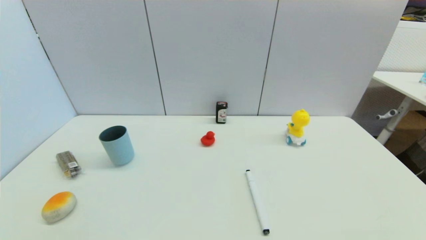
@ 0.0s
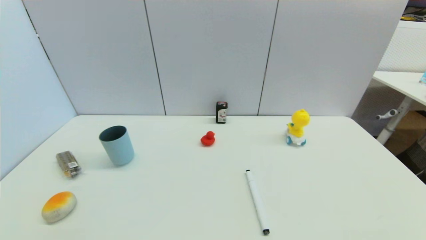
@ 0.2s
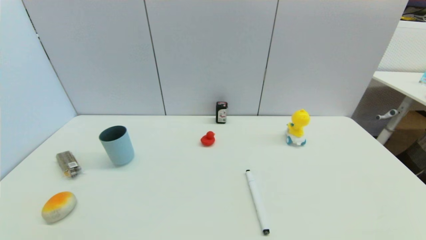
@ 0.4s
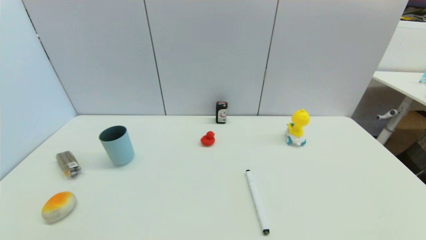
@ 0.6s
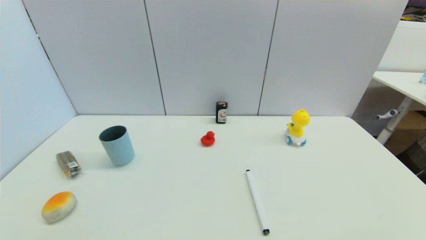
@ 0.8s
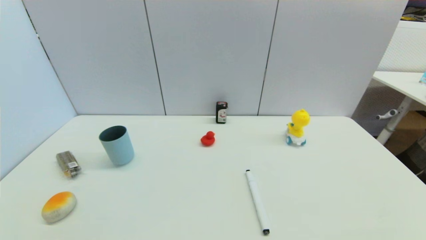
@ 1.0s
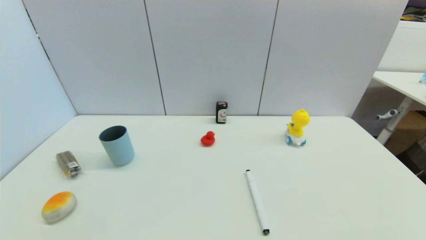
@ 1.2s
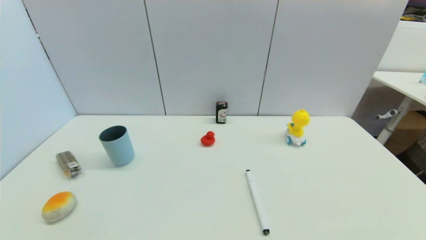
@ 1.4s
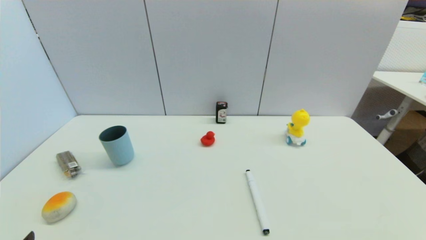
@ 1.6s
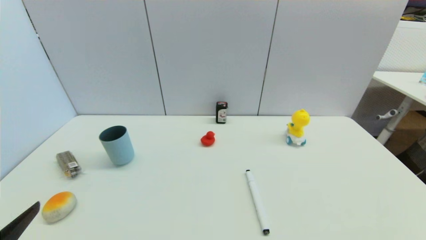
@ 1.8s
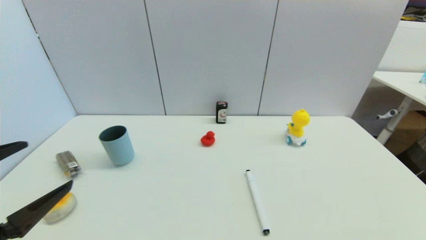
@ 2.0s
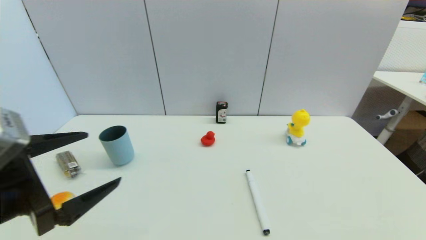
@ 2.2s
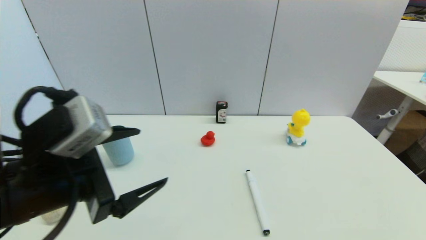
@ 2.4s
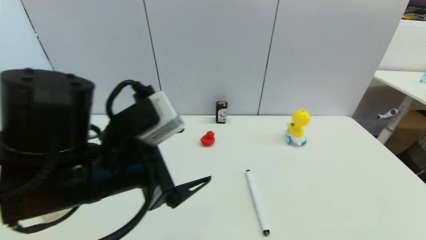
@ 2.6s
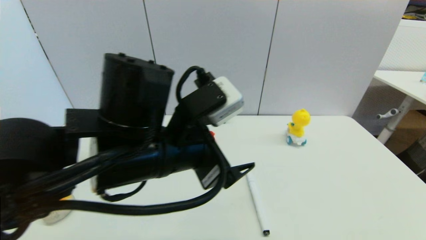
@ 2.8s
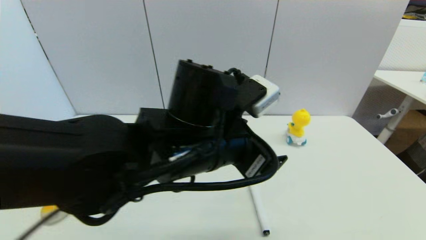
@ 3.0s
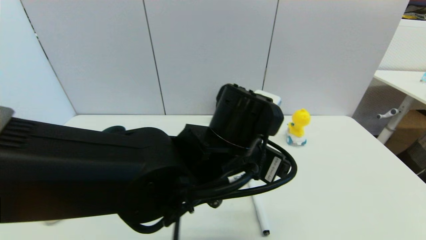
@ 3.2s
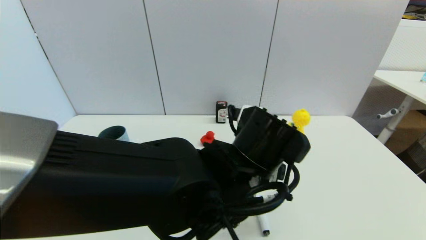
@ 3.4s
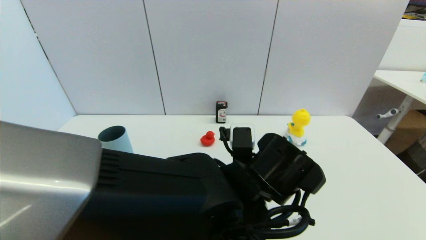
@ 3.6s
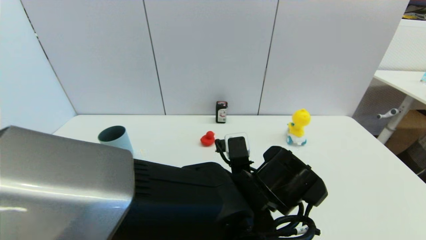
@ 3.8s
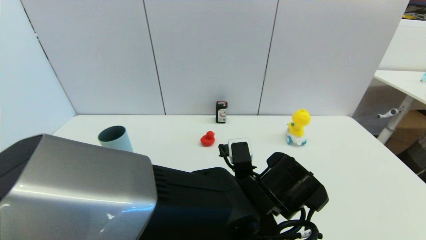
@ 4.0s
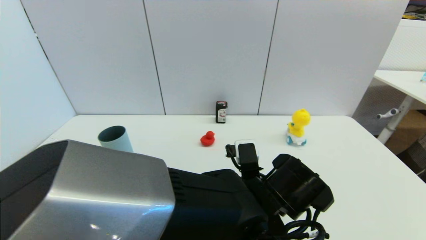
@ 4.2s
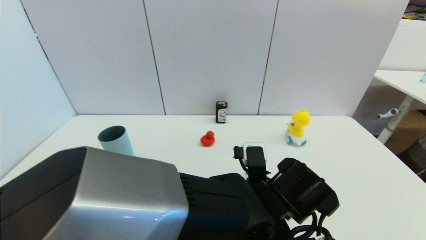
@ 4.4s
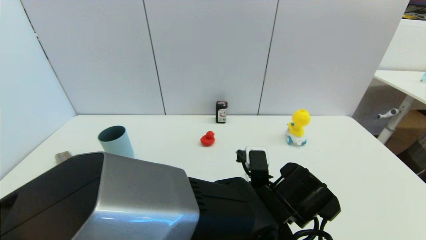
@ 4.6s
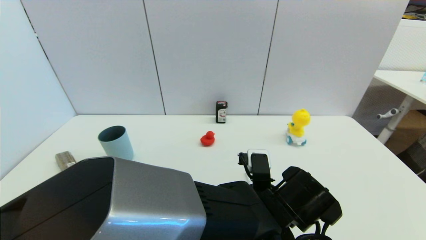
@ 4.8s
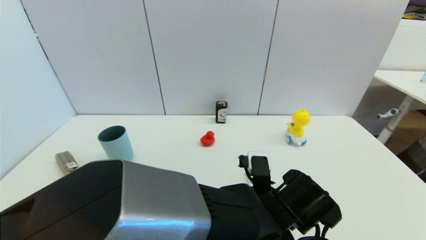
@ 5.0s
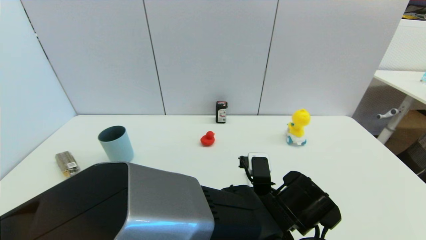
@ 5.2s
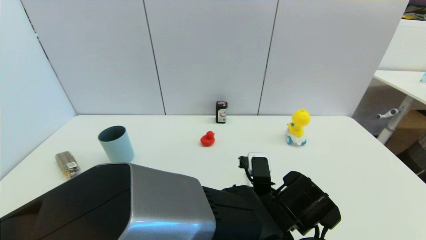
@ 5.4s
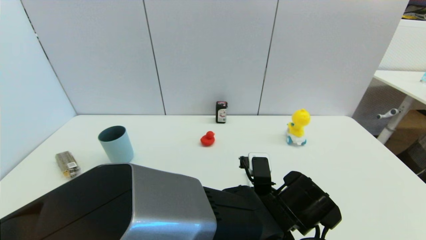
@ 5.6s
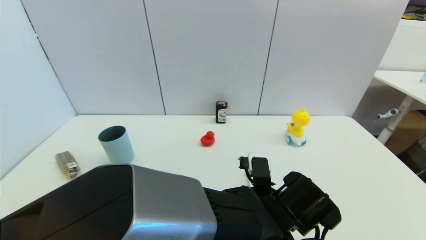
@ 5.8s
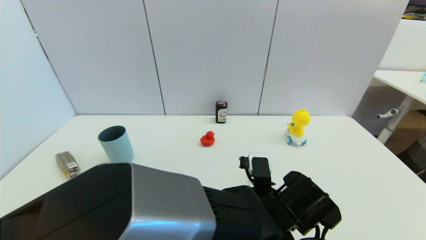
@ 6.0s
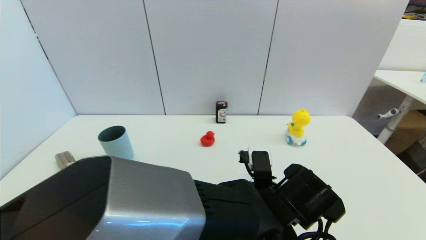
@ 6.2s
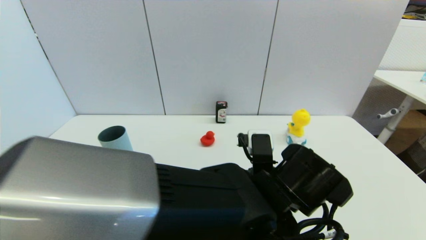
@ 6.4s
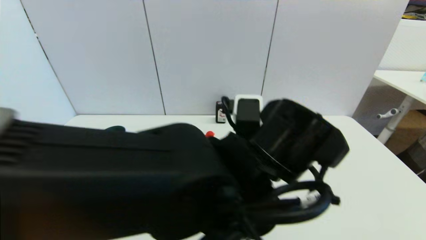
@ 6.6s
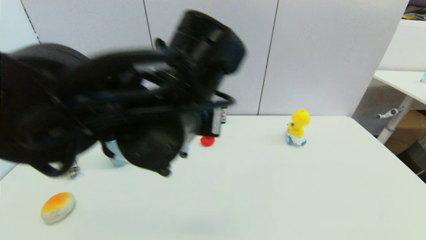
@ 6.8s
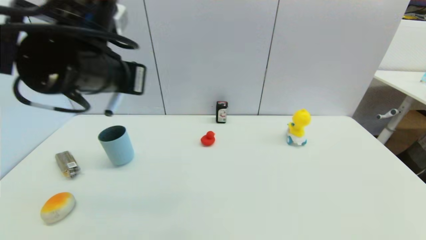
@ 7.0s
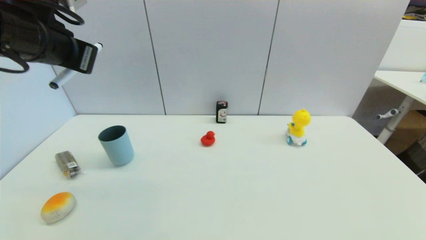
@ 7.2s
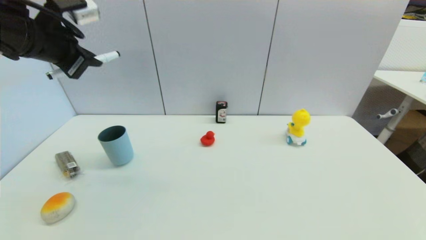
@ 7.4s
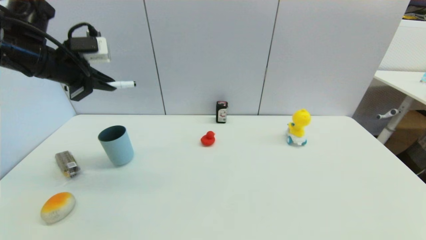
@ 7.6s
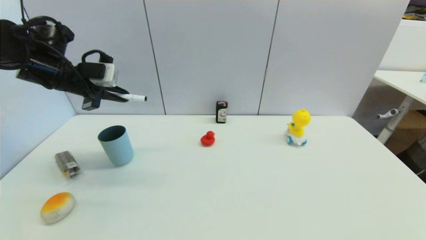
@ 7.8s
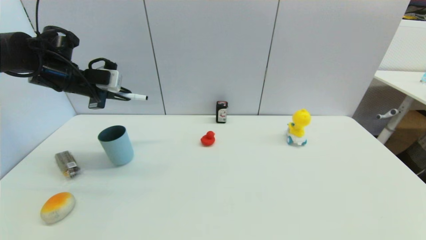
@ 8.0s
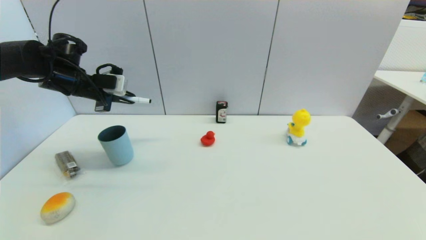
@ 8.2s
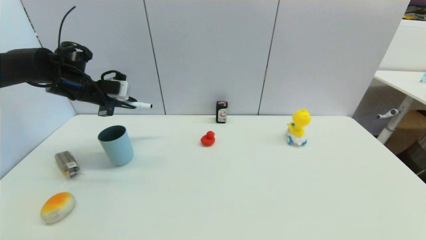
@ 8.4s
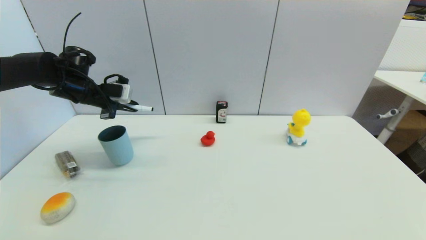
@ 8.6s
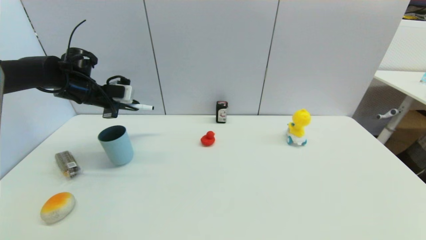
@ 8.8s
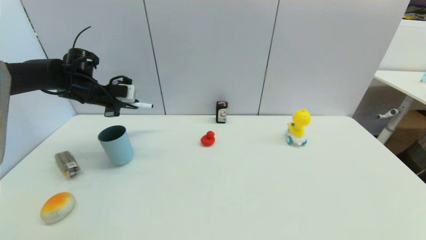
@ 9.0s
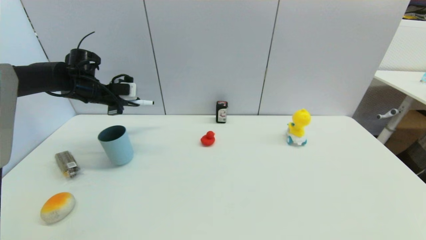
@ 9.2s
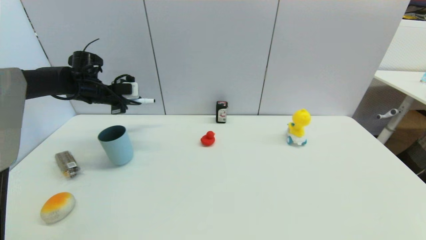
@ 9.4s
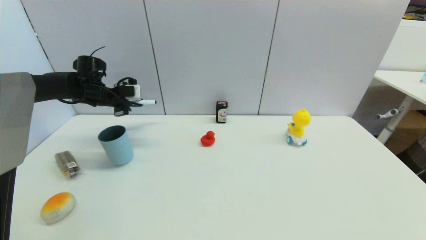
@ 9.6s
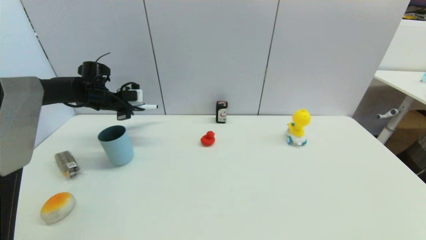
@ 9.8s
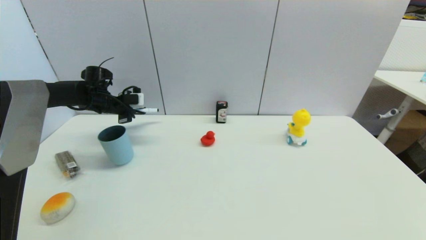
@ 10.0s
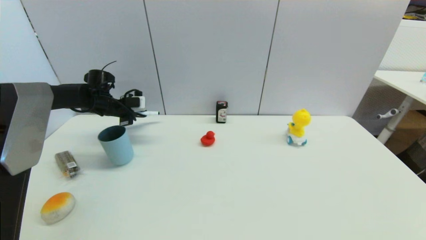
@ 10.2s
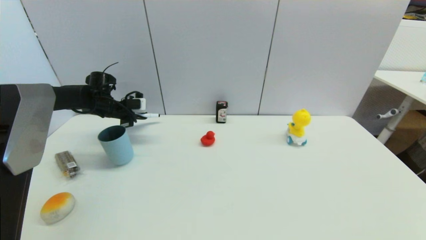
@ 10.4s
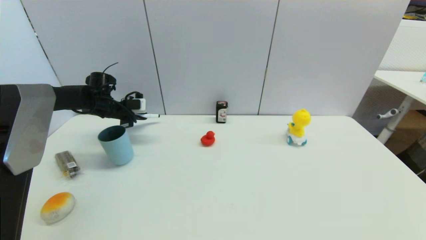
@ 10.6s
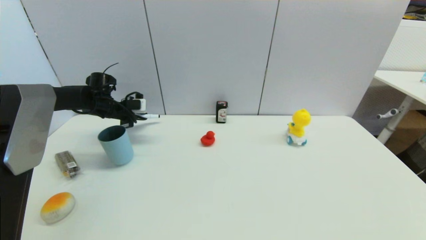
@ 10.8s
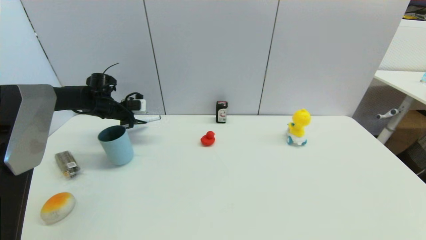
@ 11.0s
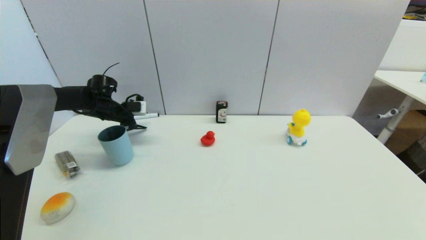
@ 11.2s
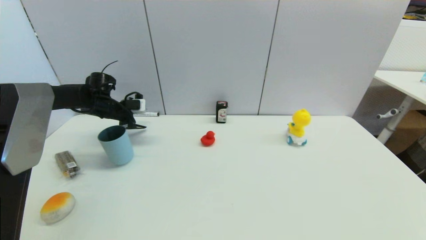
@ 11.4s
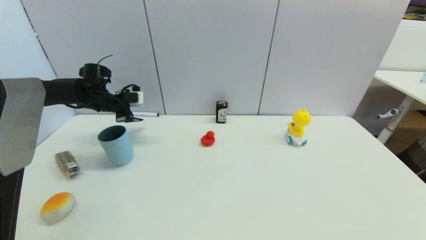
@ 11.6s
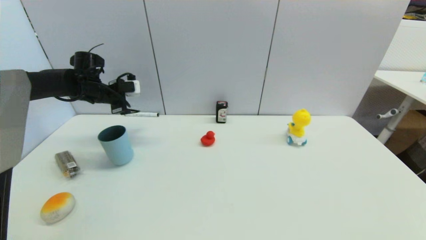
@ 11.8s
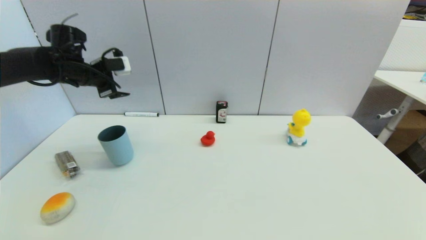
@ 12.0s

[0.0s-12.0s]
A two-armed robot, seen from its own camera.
Task of the whole recording: put the black marker in the designated position.
Step, 1.6s to 5.8s: Grasp the Marker pen with left gripper.
Step, 6.2s to 11.2s: Place the Marker pen on the table with left gripper.
1.6s to 3.0s: The left gripper travels to the right and forward by roughly 35 cm.
3.0s to 4.4s: The left gripper travels downward and to the right by roughly 15 cm.
4.4s to 6.0s: The left gripper closes up.
6.0s to 7.6s: The left gripper shifts roughly 50 cm to the left, upward and forward.
7.6s to 9.0s: The left gripper travels forward and downward by approximately 15 cm.
9.0s to 10.4s: The left gripper shifts some 5 cm downward.
10.4s to 12.0s: The left gripper shifts approximately 15 cm upward and backward, and opens.

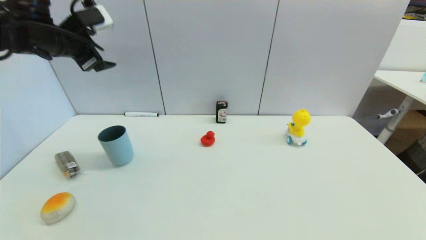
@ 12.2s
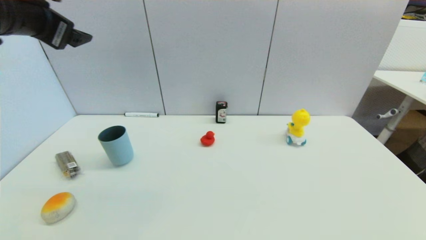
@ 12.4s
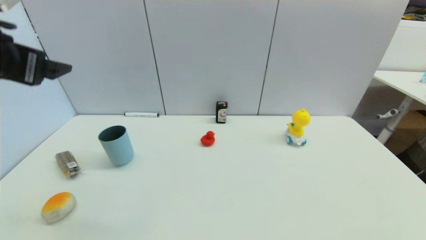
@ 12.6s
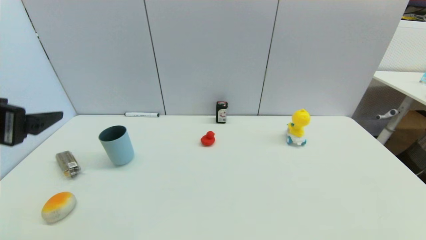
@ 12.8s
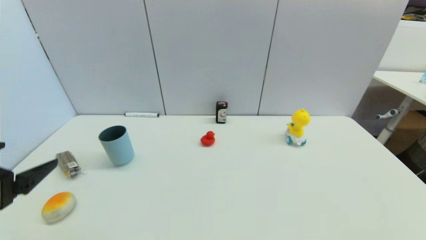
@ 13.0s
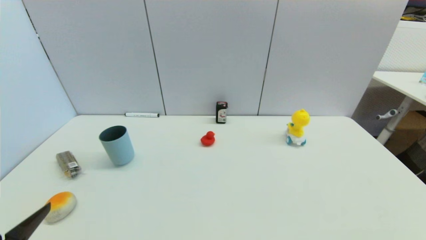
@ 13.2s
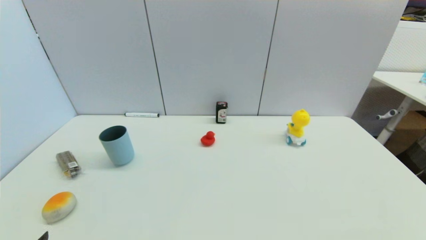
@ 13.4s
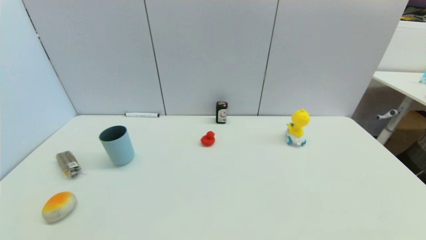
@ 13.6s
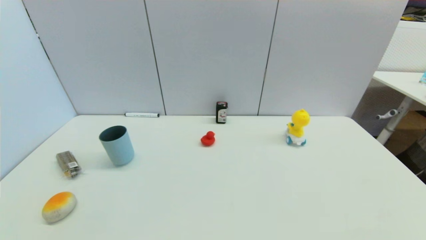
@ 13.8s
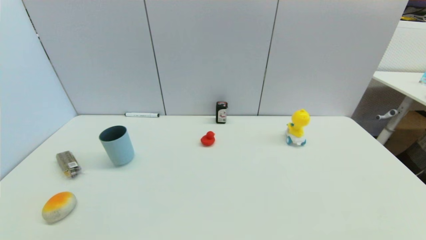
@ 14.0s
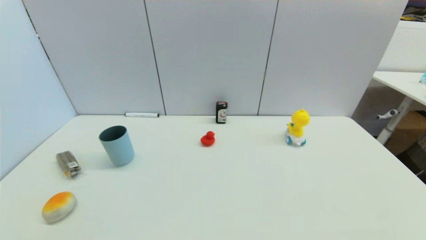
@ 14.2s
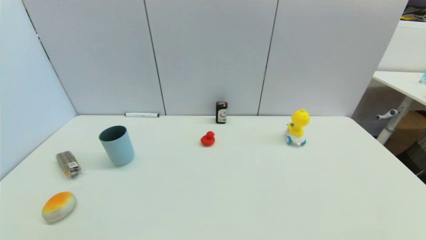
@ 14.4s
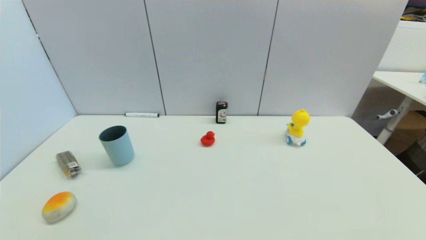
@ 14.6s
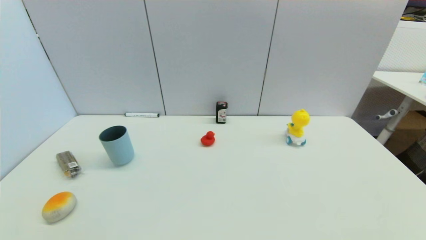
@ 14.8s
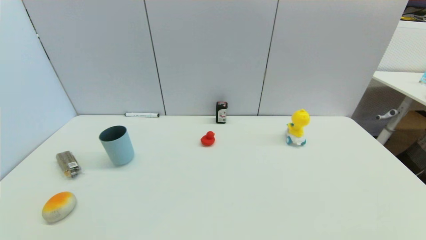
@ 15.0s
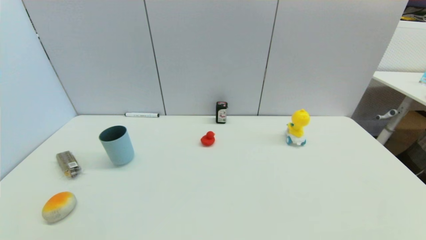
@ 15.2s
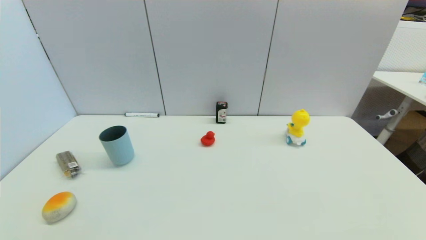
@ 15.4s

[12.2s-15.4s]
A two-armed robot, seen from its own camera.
Task of the whole recording: put the black marker in the designated position.
12.2s to 13.8s: The left gripper moves backward and downward, some 50 cm.

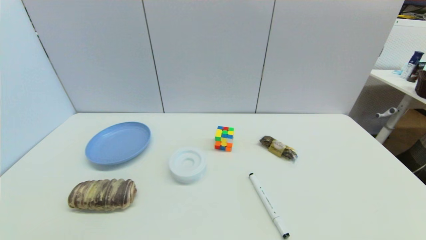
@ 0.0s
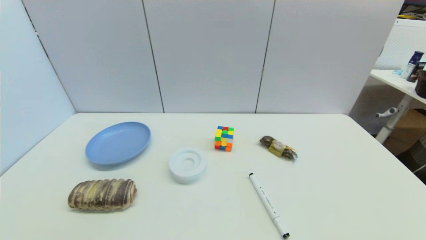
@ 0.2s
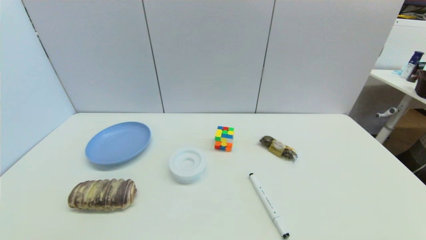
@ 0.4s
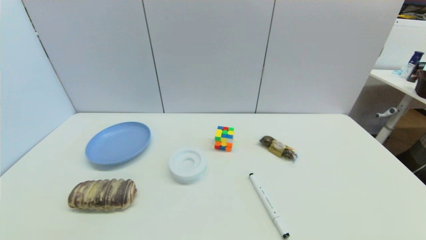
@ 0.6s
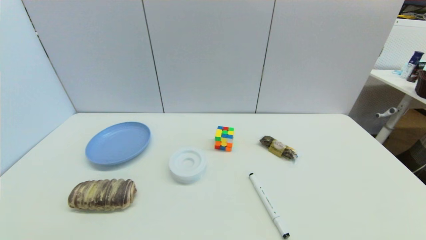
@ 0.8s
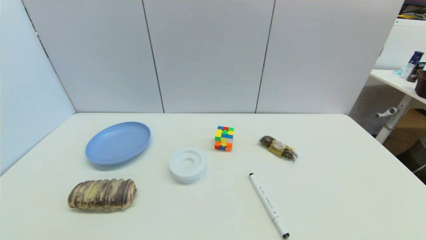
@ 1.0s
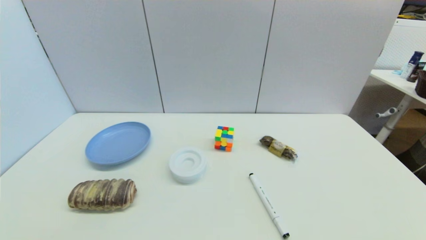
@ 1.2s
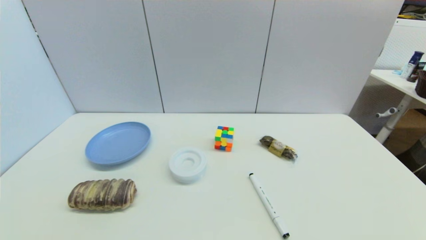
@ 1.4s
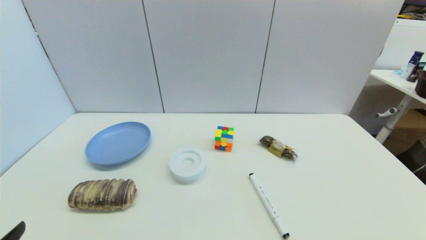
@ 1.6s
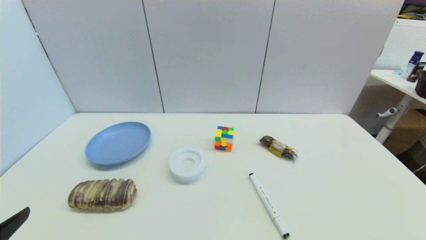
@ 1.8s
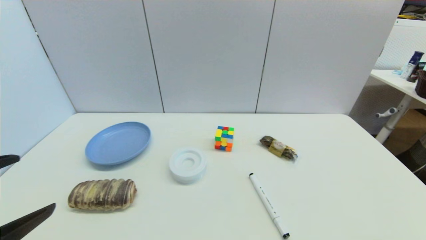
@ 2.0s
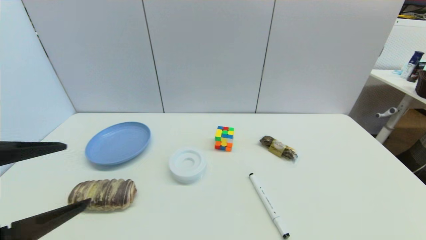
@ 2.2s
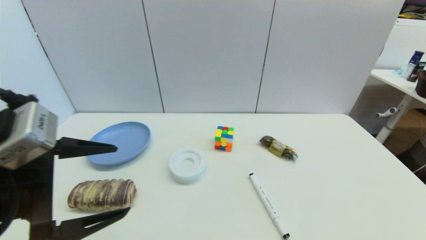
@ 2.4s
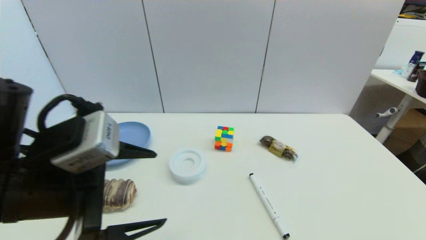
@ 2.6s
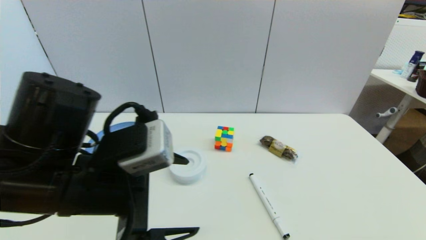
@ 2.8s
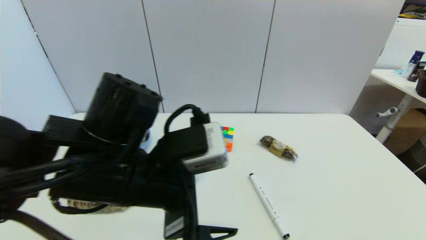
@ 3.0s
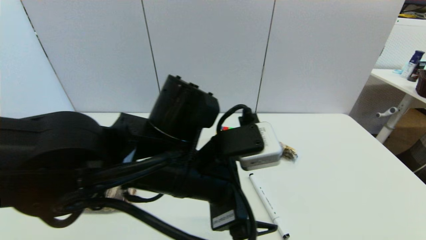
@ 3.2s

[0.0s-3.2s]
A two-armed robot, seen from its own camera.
Task of the whole recording: put the black marker in the designated position.
1.6s to 3.2s: The left gripper shifts about 30 cm to the right and forward.
